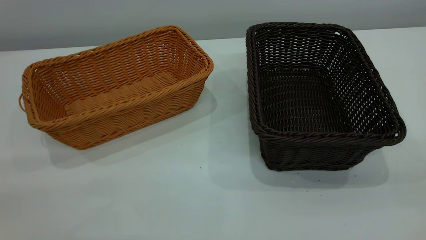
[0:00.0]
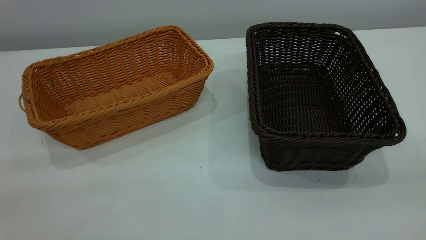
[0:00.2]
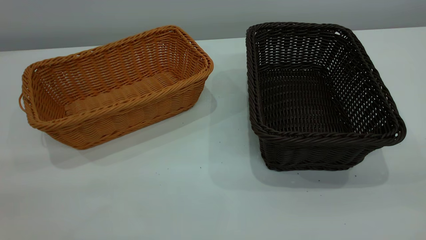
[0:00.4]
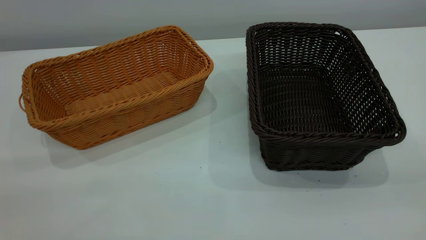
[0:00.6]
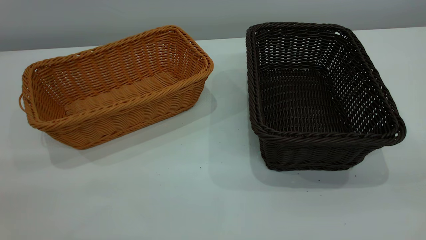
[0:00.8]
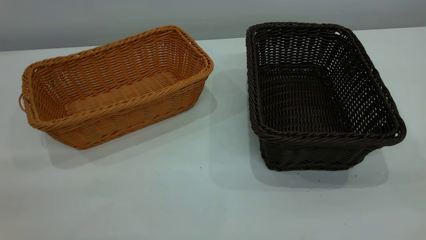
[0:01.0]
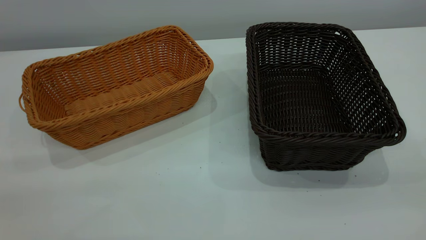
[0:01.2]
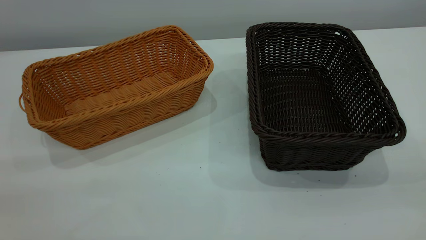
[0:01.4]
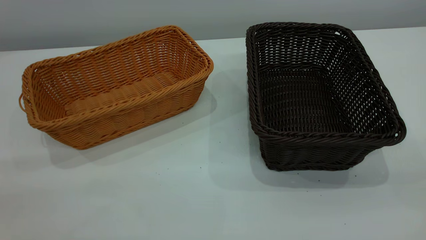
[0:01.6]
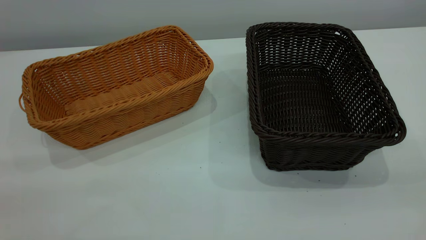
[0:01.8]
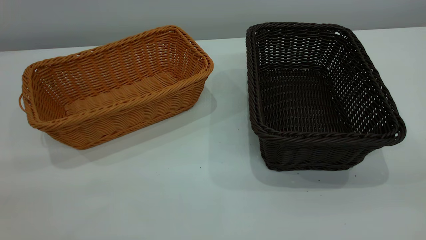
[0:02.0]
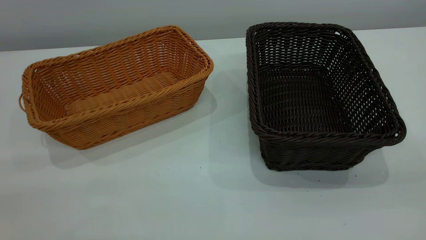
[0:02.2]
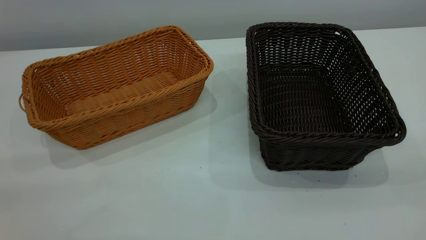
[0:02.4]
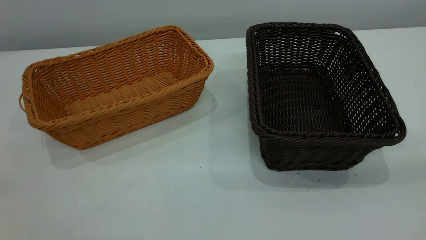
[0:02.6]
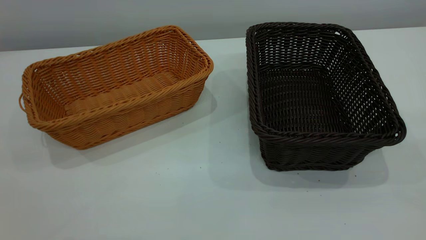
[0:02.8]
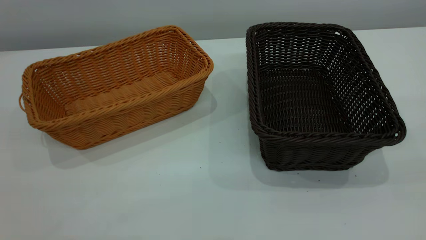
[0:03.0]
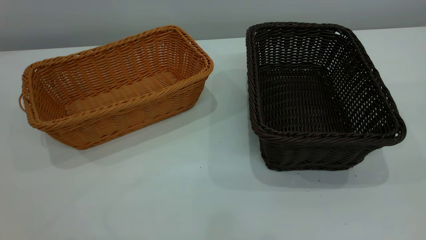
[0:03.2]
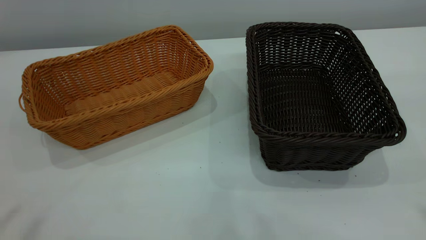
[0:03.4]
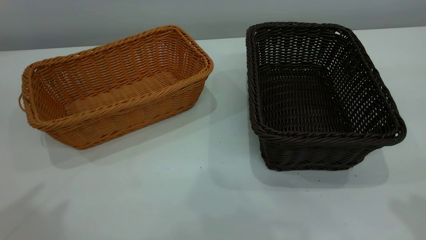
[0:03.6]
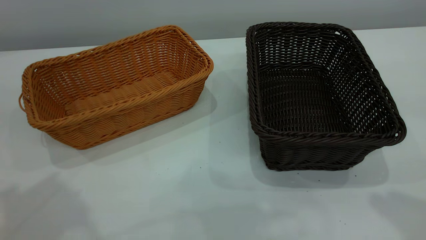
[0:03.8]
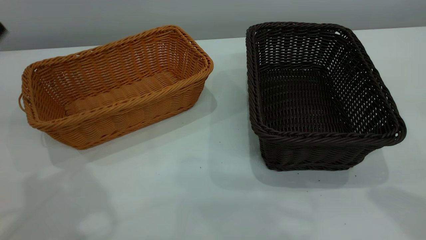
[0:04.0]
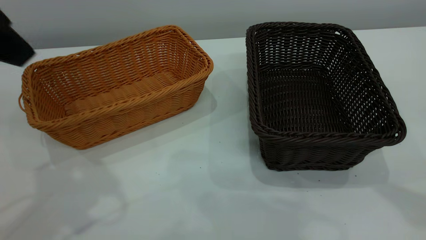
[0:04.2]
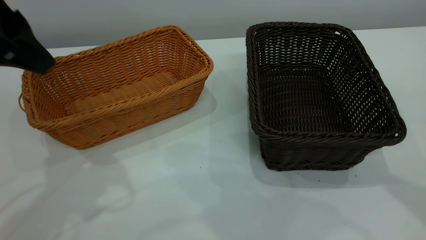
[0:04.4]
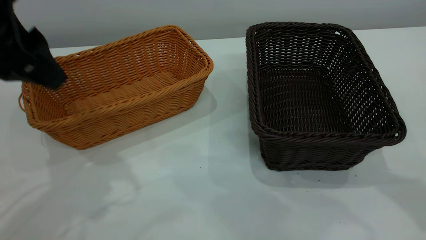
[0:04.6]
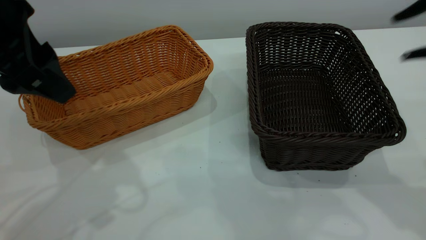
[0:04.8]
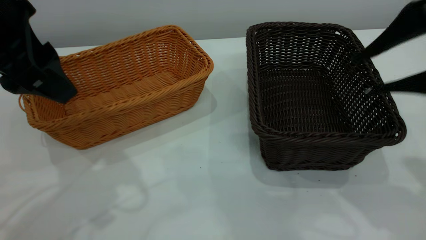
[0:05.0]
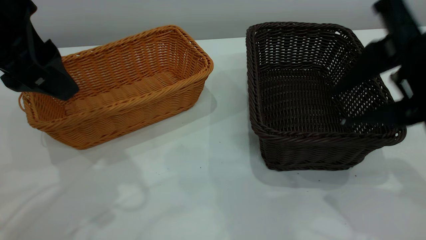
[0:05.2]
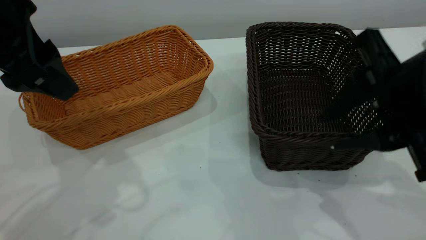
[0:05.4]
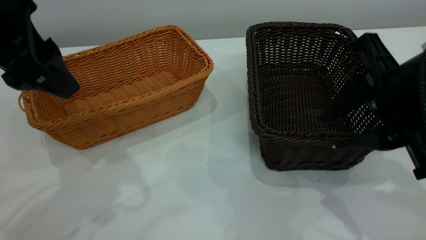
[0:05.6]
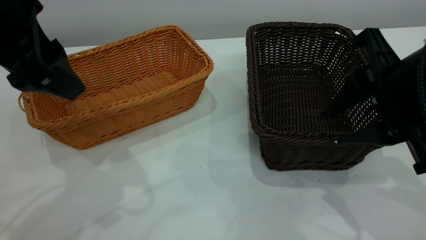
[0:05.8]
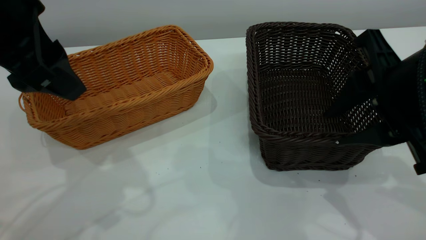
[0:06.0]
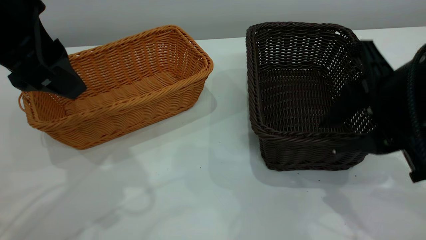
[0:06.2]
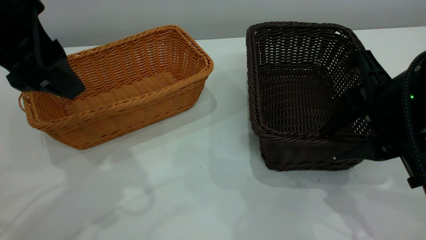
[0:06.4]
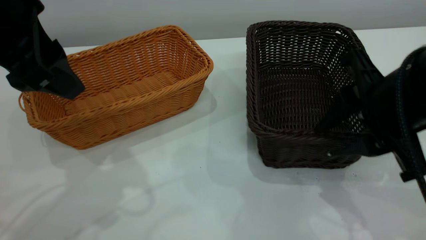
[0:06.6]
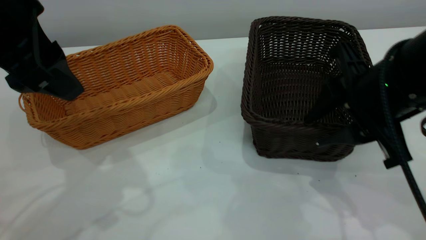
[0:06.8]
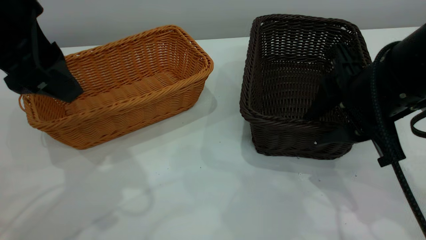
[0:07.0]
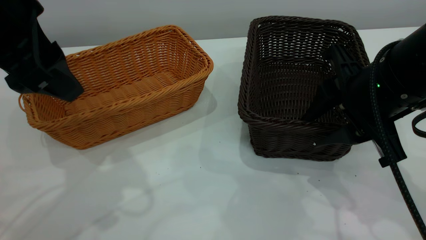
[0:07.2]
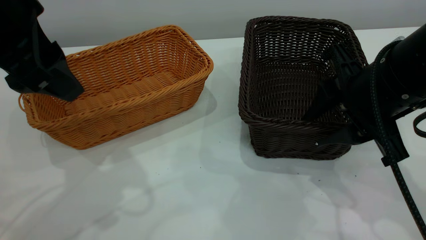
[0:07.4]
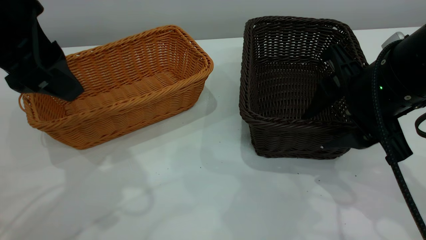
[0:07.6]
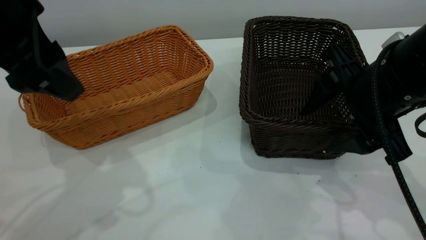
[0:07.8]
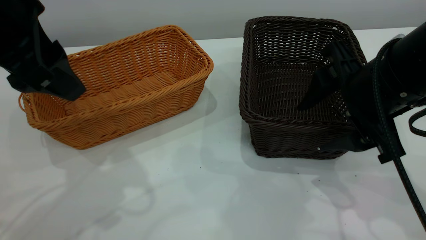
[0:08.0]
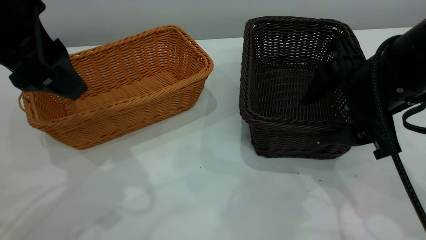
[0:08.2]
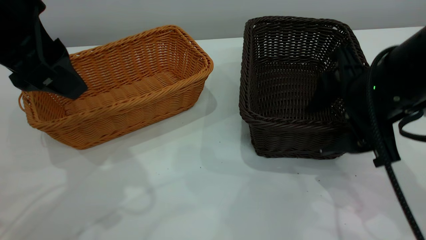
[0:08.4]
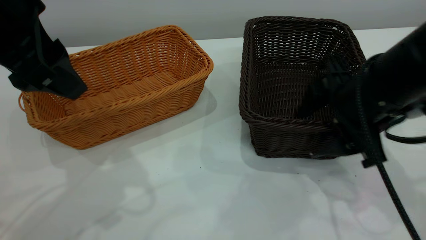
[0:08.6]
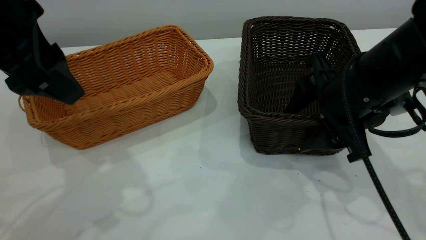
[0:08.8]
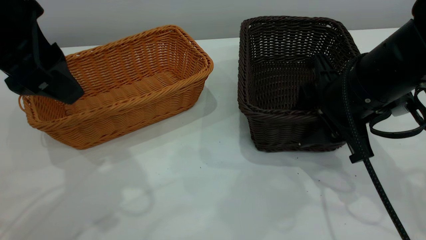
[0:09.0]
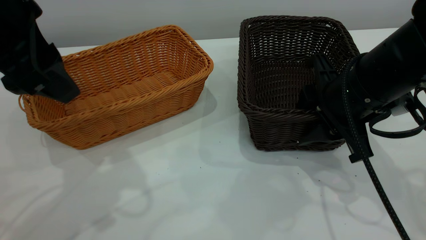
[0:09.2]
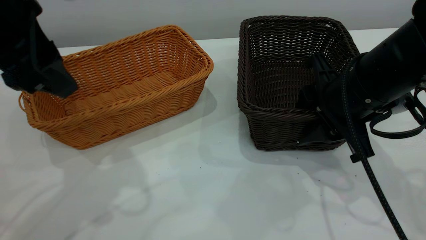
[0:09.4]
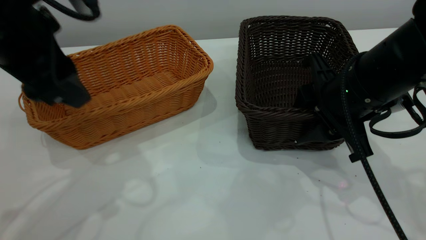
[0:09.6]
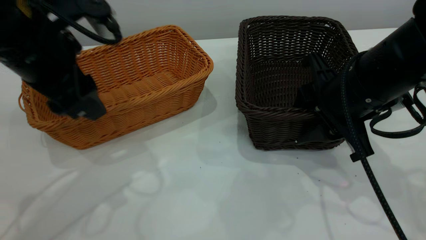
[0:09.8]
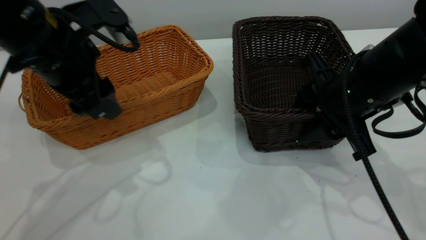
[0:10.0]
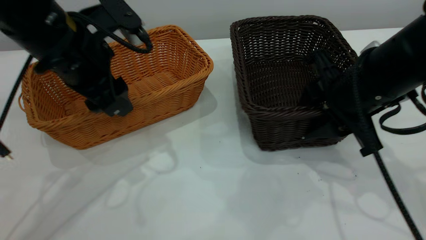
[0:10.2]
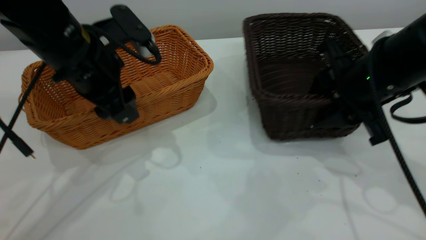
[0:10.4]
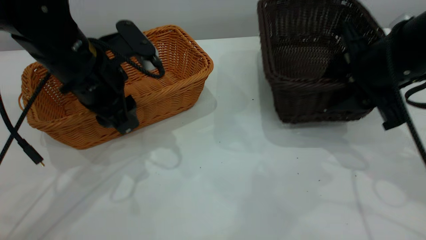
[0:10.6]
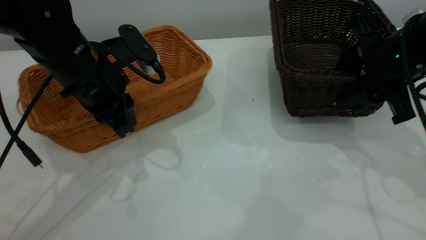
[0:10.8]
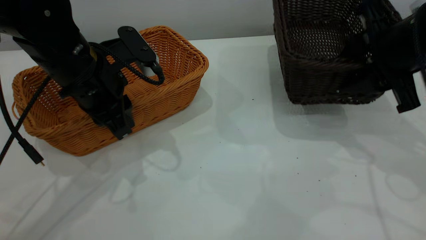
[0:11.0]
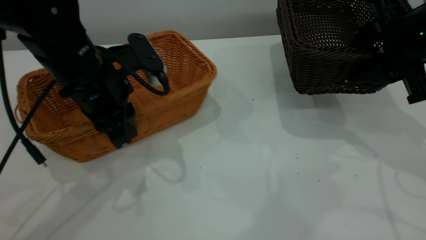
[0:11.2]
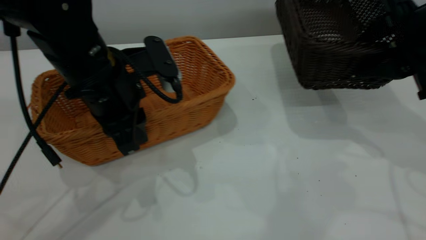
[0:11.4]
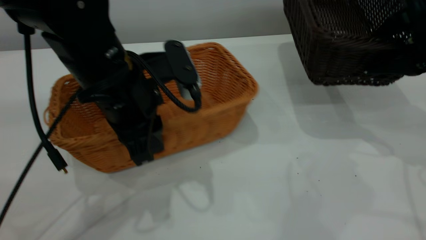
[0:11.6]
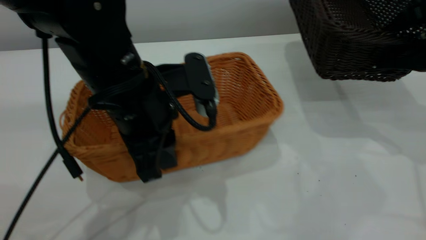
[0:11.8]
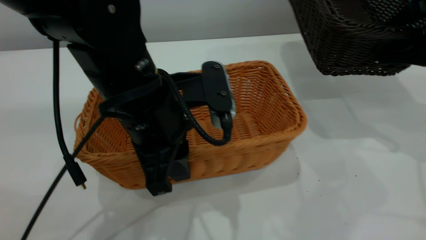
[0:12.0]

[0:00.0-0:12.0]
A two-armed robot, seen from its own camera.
Task of the whole recording: the left gripper grasp the brown basket and place it in the center of the table, the right gripper grasp the black basket and place it inside the brown one.
Step, 0:00.0 to 0:10.6: Pick up the light basket with the right gripper.
0:00.0 to 0:01.6: Neither gripper changes place.
0:03.0 to 0:04.4: The left gripper shifts approximately 25 cm forward and downward, and opens.
0:04.4 to 0:06.0: The right gripper heads downward, to the left and forward, covering some 15 cm.
0:06.0 to 0:07.6: The grippers make only small movements.
0:07.6 to 0:09.0: The grippers move only a little.
0:09.0 to 0:10.4: The left gripper is displaced downward and forward by some 15 cm.
0:10.4 to 0:12.0: The right gripper heads to the right and upward, covering roughly 10 cm; the left gripper shifts some 10 cm to the right and backward, and closes.

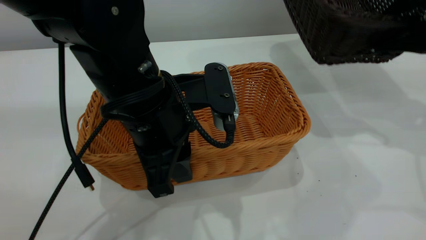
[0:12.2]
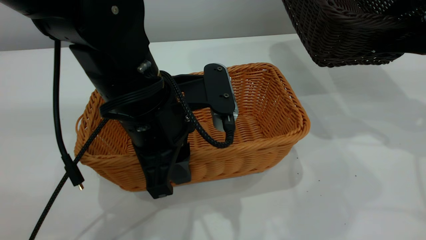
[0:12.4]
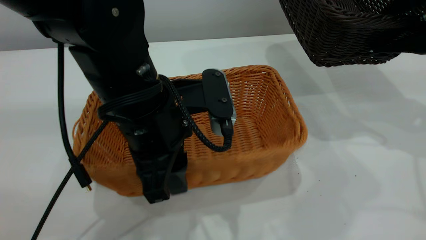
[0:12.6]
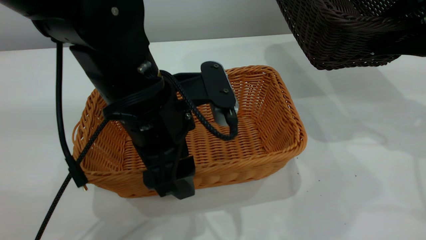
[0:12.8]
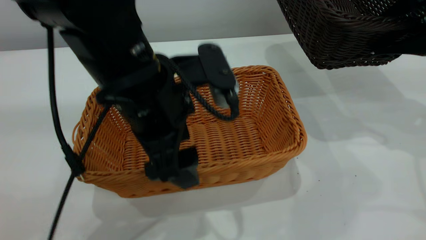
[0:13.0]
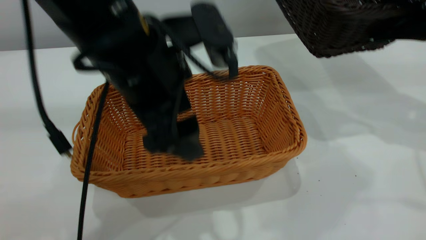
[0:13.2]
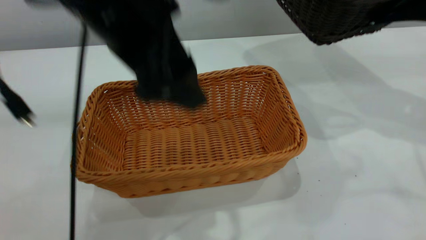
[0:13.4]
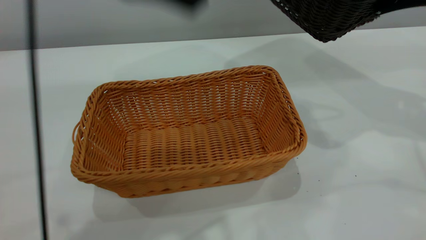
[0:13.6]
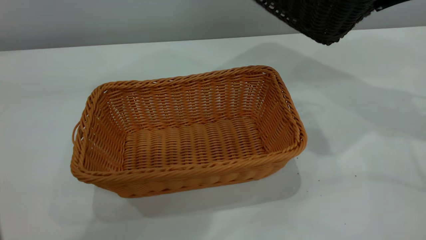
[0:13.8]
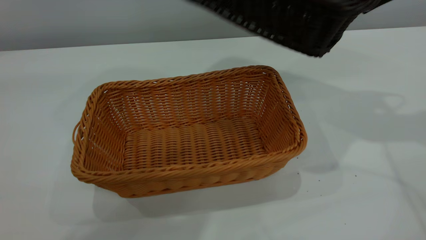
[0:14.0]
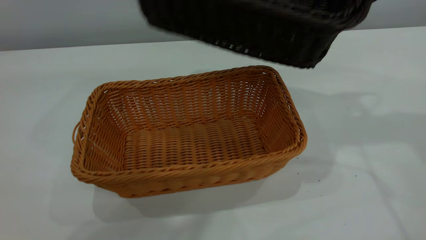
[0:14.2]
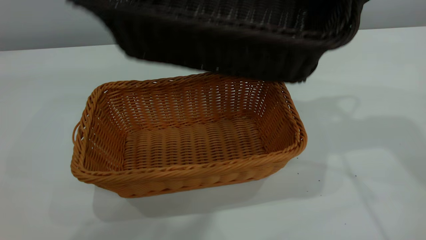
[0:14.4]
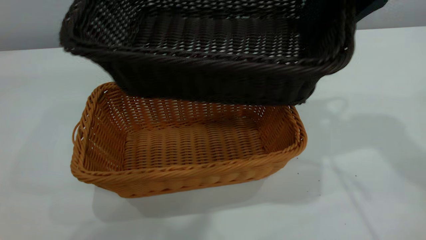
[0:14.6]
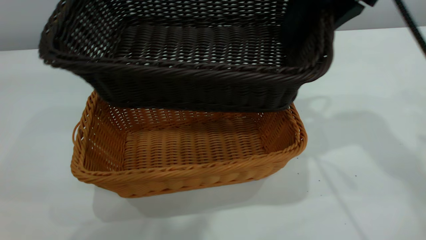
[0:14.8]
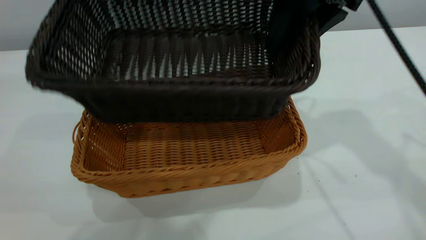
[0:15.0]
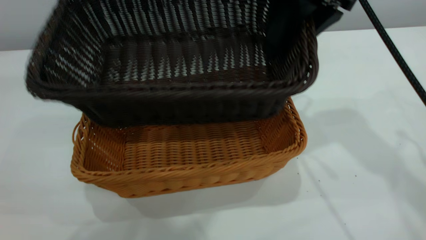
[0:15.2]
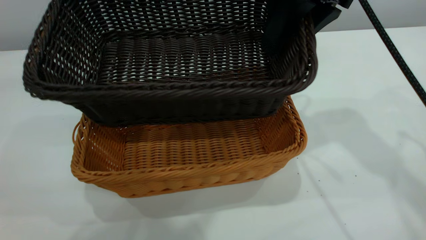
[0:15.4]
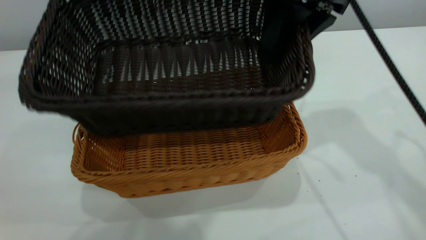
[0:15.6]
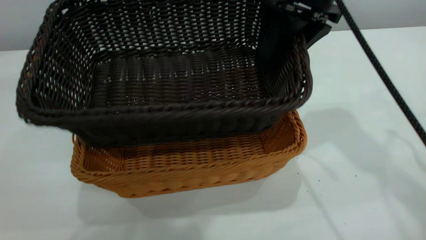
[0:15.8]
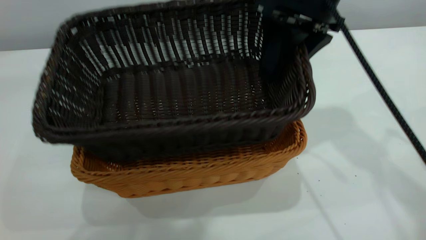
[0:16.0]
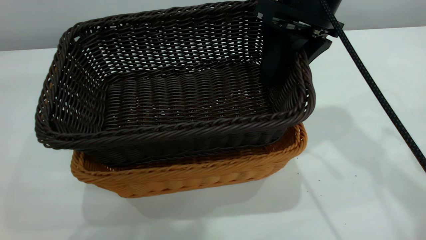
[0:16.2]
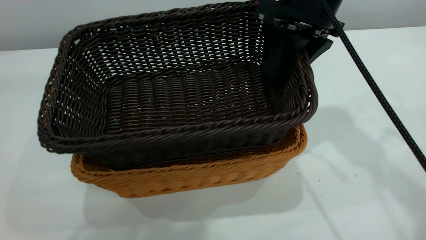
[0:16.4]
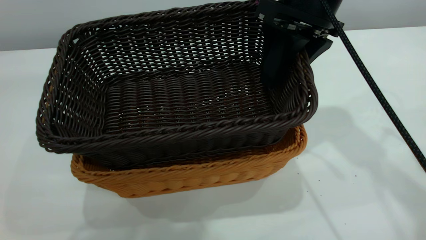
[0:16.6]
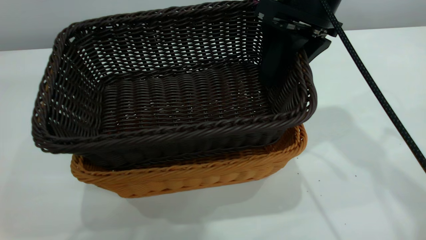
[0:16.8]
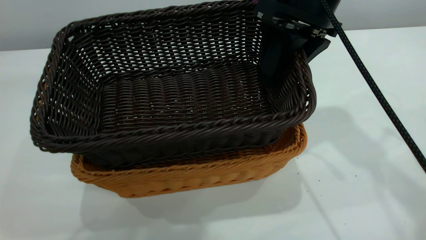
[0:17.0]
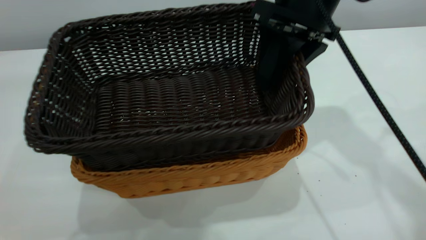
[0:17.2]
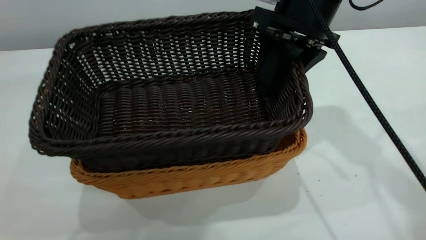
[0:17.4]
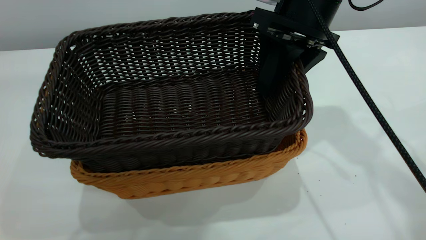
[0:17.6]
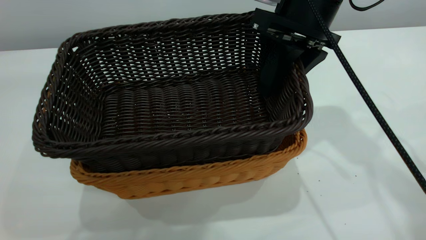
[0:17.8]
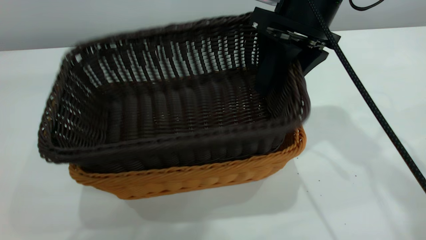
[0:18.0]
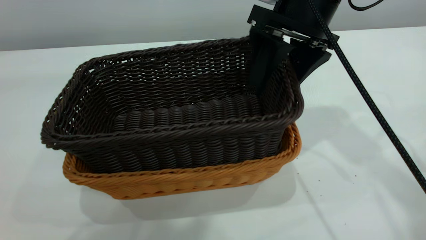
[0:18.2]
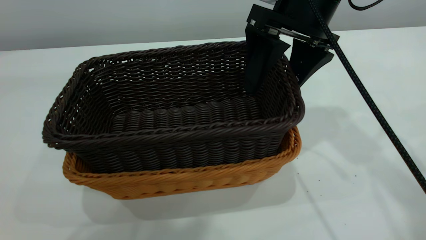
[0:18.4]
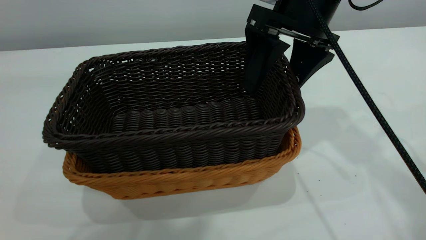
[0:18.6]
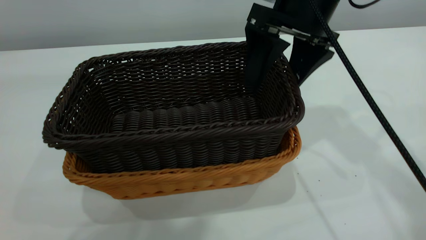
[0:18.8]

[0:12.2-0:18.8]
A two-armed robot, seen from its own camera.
Task of the whole recording: the left gripper grasp the brown basket and place it in the center of the table, the right gripper grasp the black basket and place it inside the brown one.
0:12.2 to 0:13.8: The left gripper moves upward, about 30 cm, and opens its fingers. Meanwhile the right gripper shifts about 10 cm upward.
0:13.8 to 0:15.4: The right gripper heads to the left, covering some 15 cm.
0:17.2 to 0:18.8: The right gripper opens its fingers.
